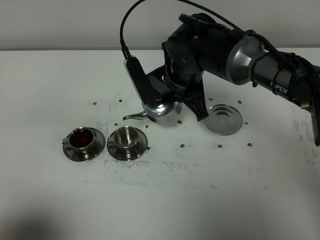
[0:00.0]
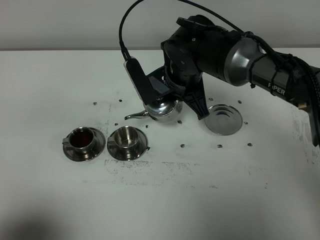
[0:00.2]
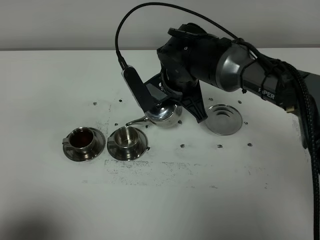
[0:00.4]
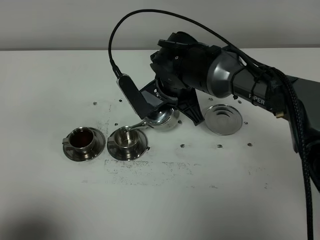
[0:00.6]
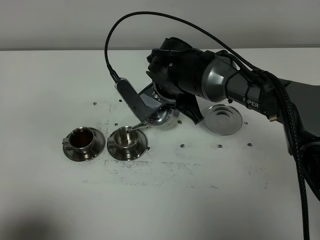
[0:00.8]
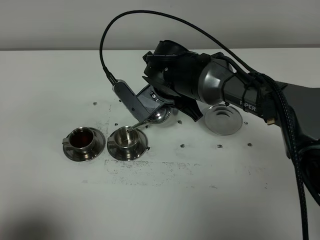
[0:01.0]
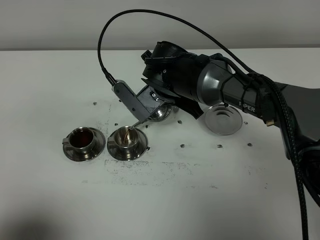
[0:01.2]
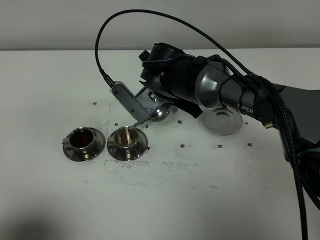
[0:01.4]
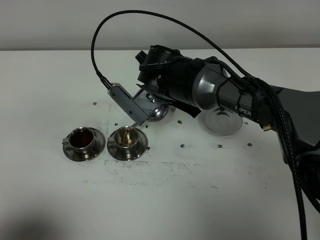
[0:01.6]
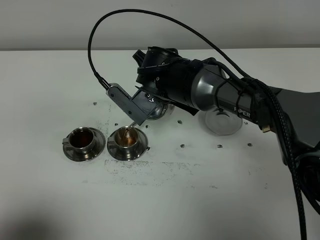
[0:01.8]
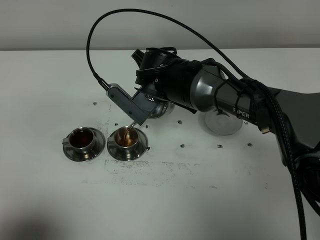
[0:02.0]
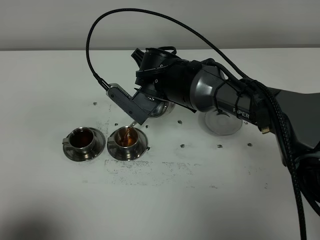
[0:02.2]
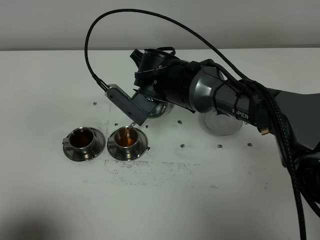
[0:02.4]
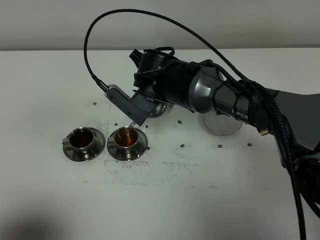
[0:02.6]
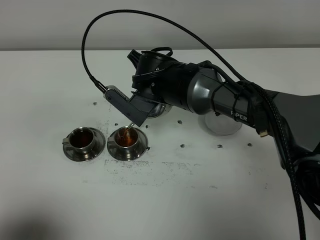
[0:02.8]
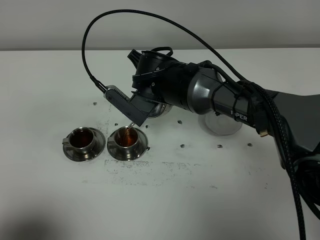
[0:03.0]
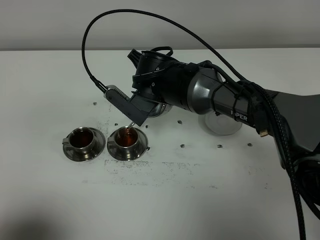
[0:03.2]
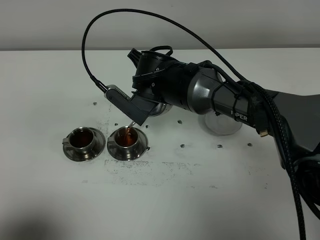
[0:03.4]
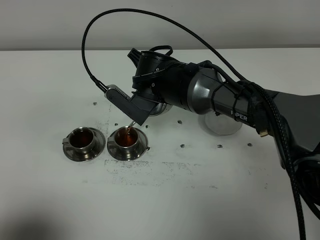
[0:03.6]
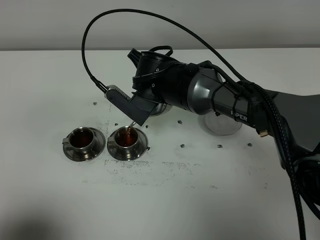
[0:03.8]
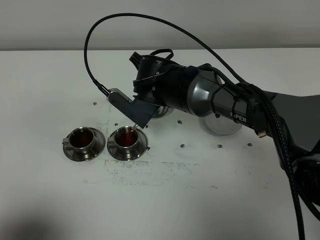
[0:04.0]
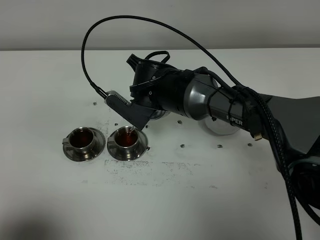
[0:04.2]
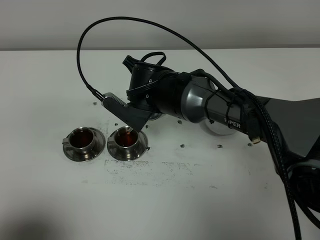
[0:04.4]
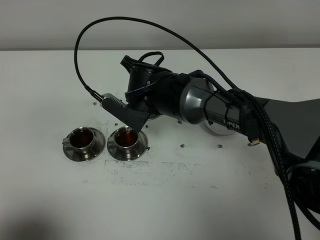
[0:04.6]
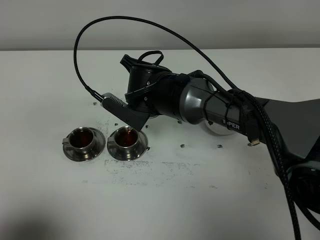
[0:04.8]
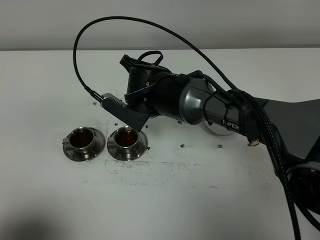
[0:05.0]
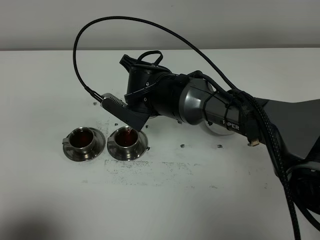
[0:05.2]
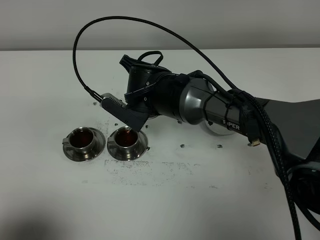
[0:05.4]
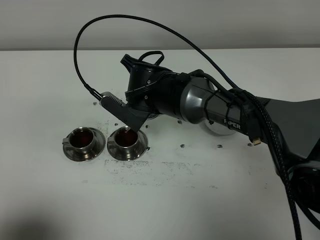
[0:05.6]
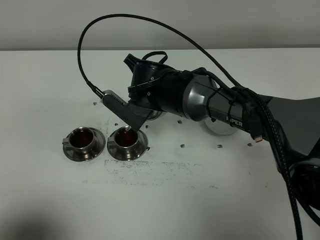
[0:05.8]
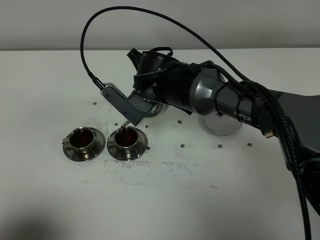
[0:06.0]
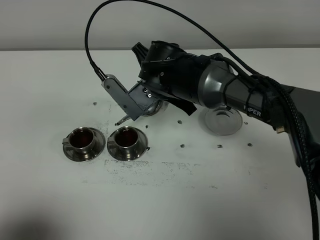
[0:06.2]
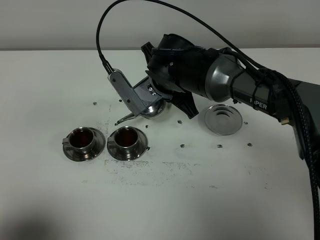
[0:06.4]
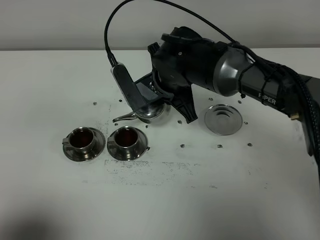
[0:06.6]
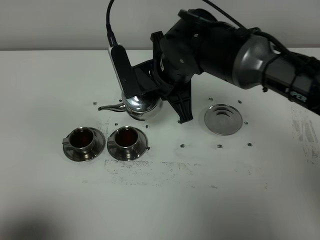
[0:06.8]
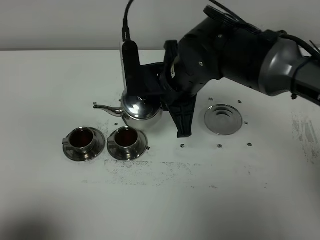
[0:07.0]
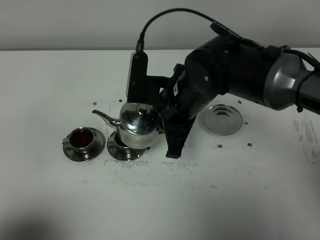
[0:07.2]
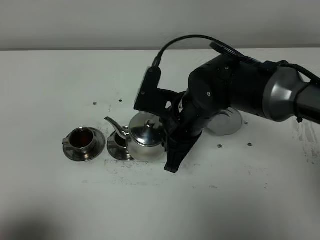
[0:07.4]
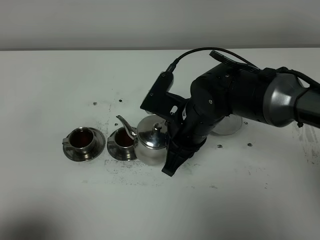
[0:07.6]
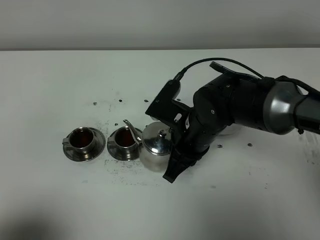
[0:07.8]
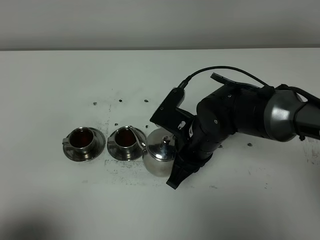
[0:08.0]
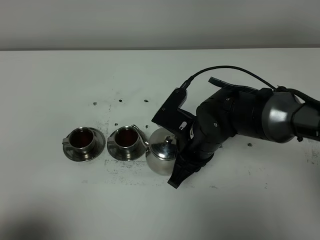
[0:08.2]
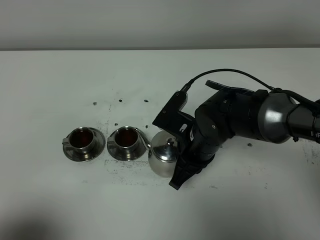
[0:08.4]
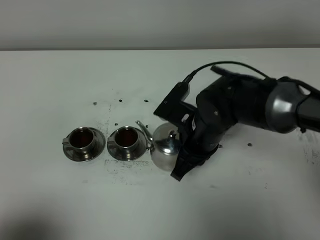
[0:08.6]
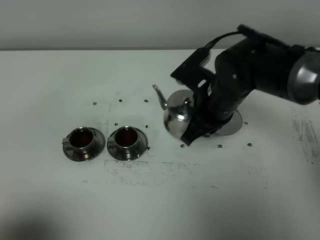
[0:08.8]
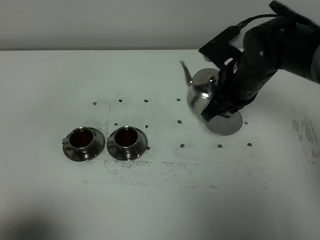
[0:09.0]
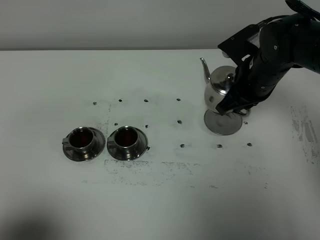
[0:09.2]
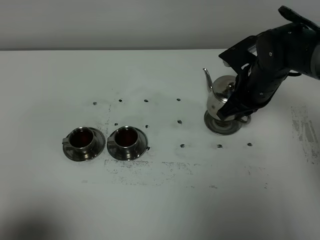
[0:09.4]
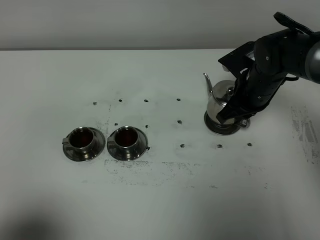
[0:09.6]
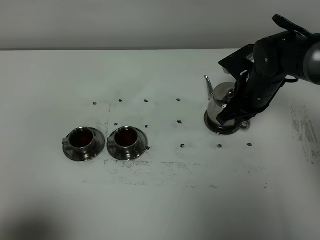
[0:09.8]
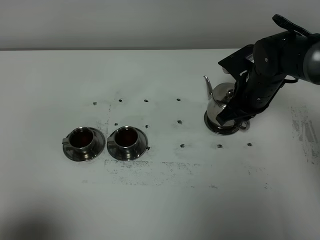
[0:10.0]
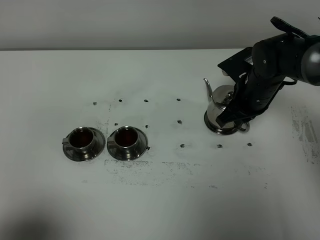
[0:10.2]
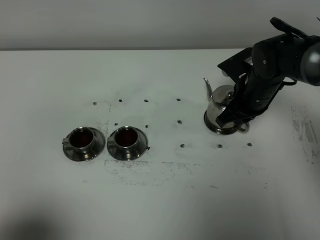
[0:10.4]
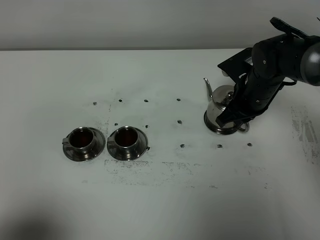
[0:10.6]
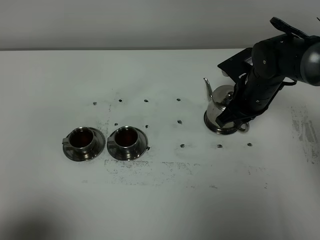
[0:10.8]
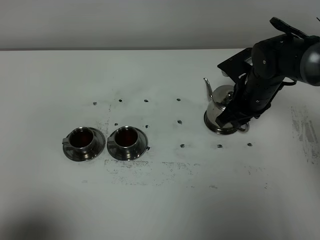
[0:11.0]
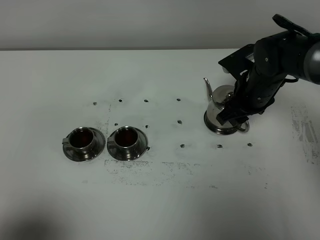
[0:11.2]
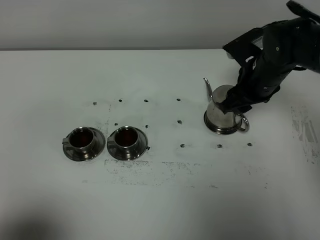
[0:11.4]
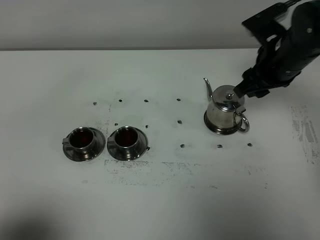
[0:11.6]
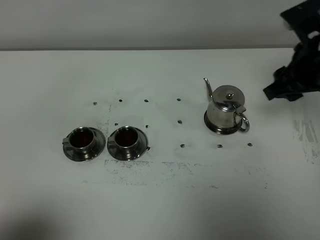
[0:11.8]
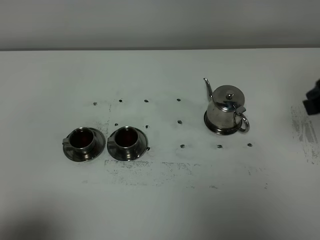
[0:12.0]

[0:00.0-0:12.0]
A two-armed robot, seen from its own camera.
Task of the whole recording: grasp the stainless steel teapot and pour the tea into the two stainless steel teacups one by one, put the stainless steel teapot back in its original place.
Step, 0:00.0 to 0:06.4: Pour tea into the teacup with the right gripper.
0:01.6 to 0:03.0: The grippers make only small movements.
0:03.0 to 0:04.4: Neither gripper changes place.
0:04.4 to 0:06.0: The grippers stay close to where they were, moving slightly.
0:06.0 to 0:07.6: The right gripper goes about 10 cm backward and to the right.
0:07.6 to 0:09.0: The right gripper shifts roughly 10 cm to the right and forward.
0:09.0 to 0:10.4: The right gripper shifts approximately 5 cm downward.
0:10.4 to 0:12.0: The right gripper shifts some 25 cm upward, backward and to the right, and opens up.
